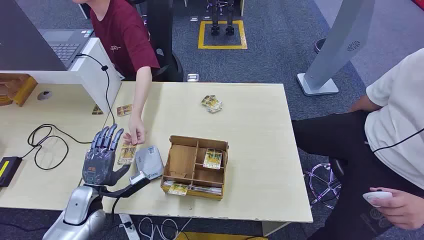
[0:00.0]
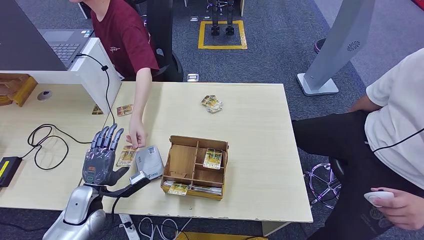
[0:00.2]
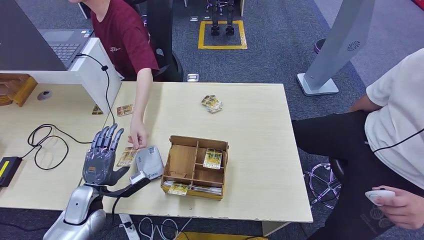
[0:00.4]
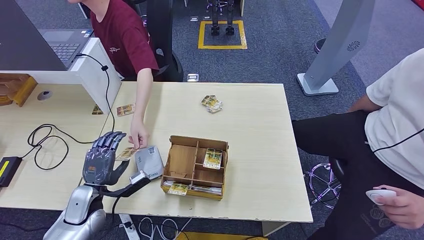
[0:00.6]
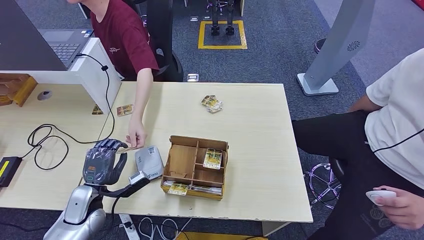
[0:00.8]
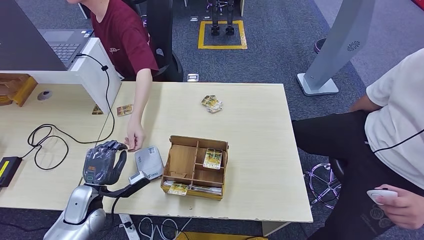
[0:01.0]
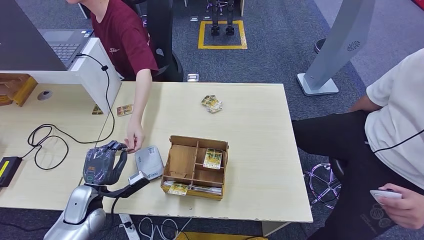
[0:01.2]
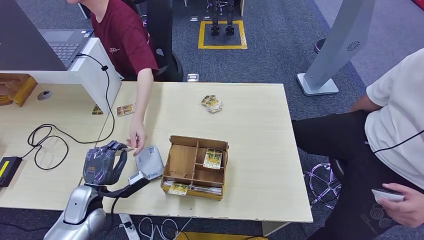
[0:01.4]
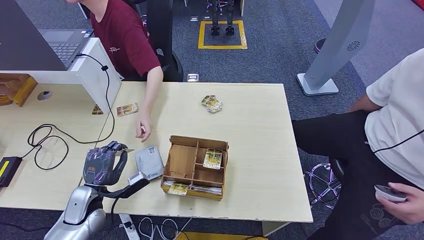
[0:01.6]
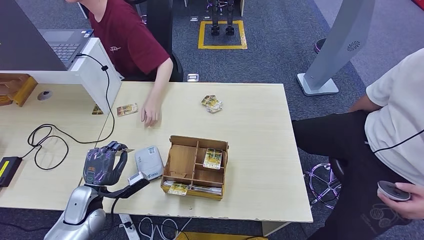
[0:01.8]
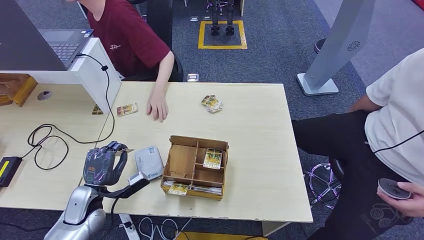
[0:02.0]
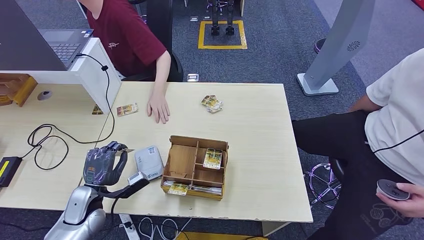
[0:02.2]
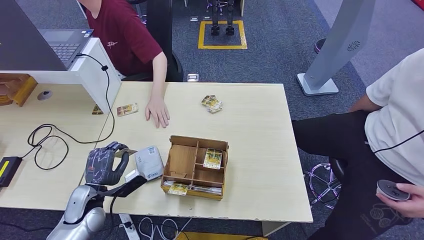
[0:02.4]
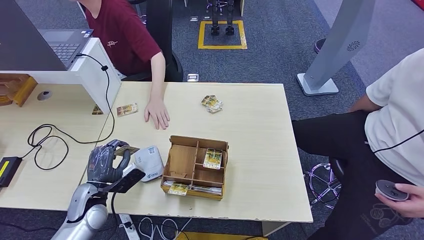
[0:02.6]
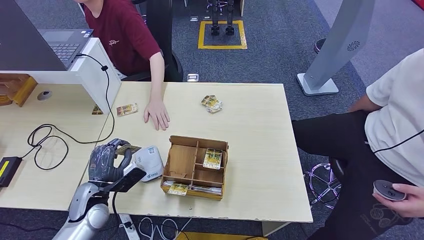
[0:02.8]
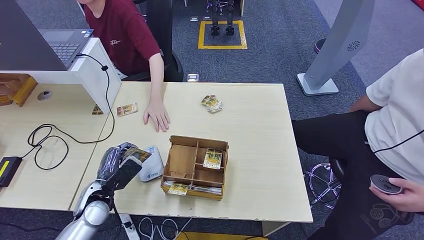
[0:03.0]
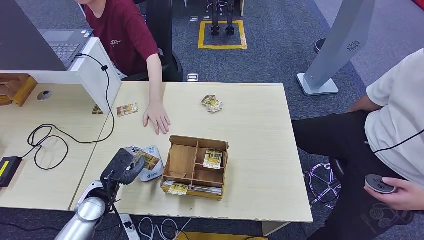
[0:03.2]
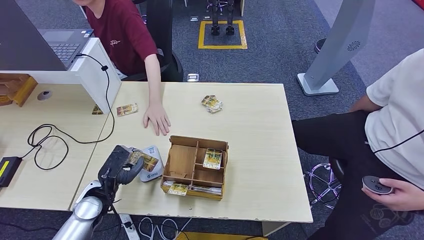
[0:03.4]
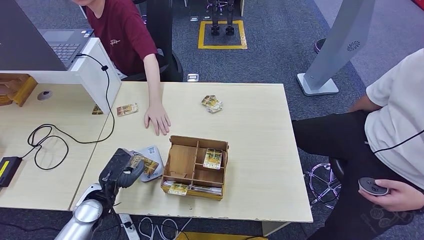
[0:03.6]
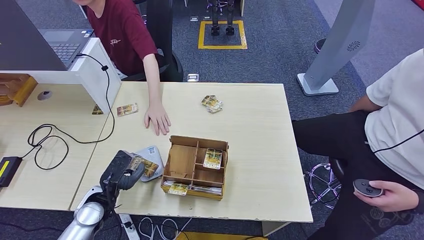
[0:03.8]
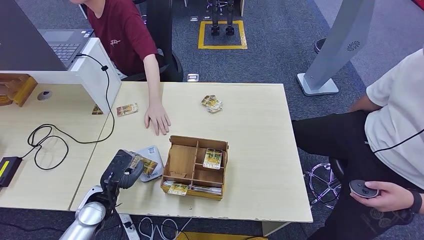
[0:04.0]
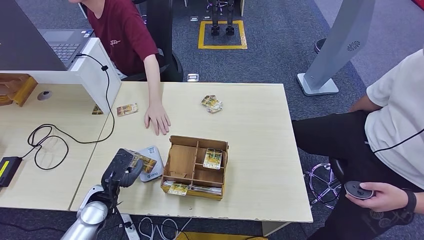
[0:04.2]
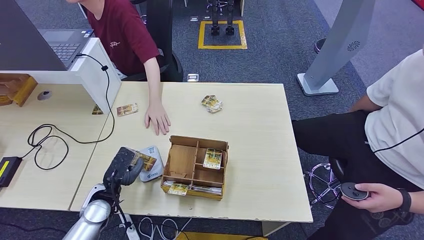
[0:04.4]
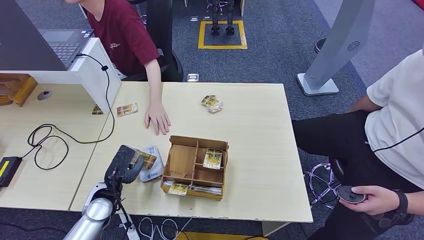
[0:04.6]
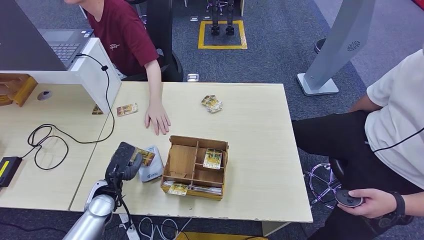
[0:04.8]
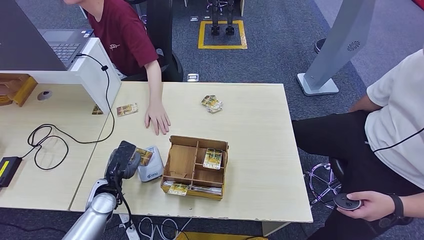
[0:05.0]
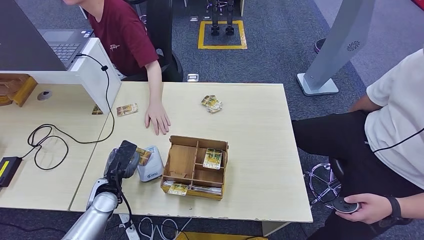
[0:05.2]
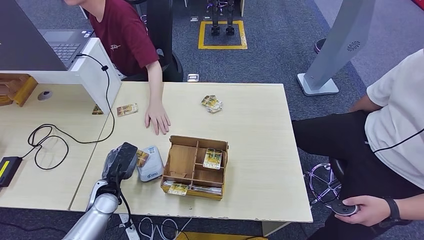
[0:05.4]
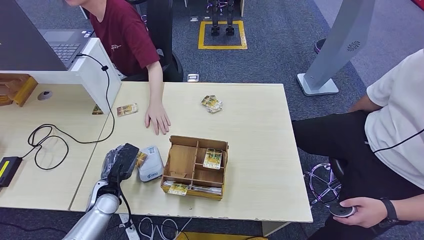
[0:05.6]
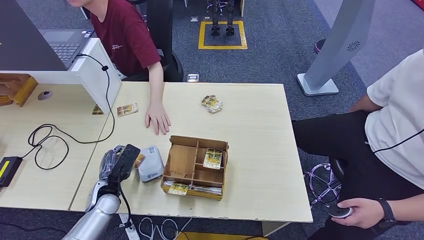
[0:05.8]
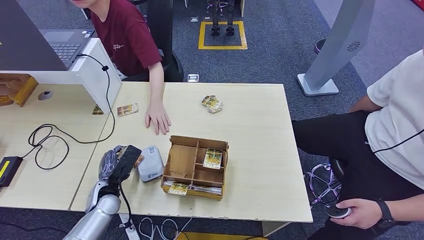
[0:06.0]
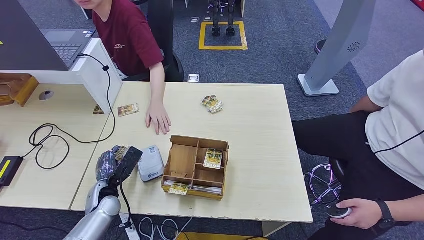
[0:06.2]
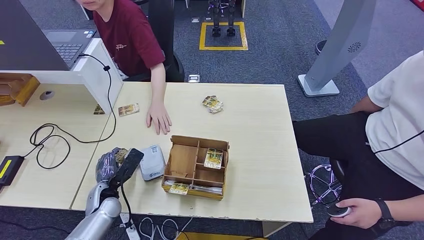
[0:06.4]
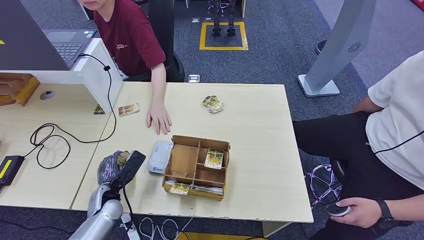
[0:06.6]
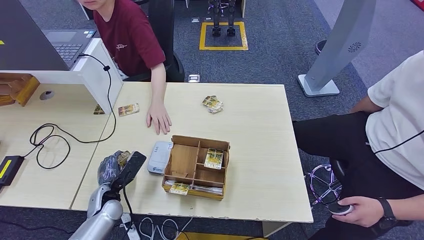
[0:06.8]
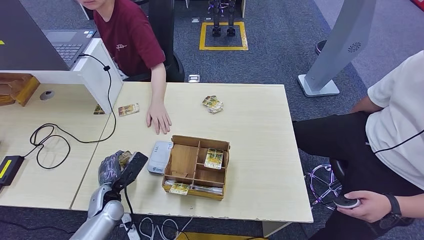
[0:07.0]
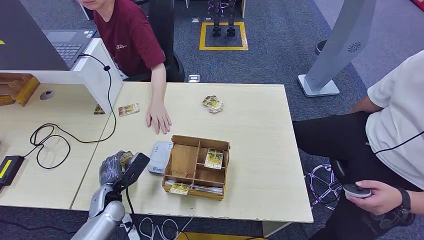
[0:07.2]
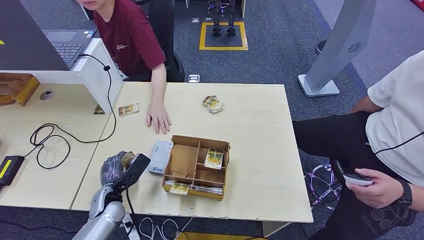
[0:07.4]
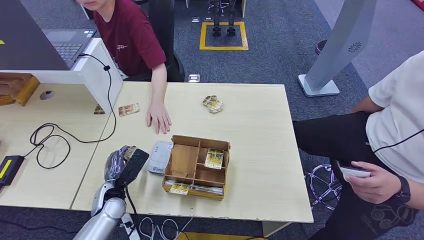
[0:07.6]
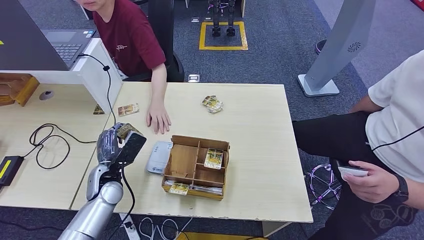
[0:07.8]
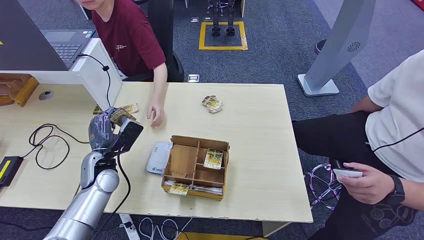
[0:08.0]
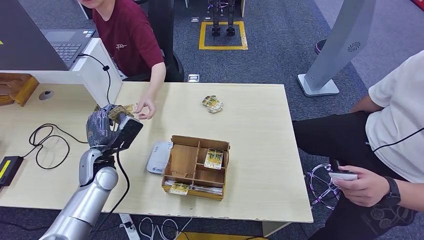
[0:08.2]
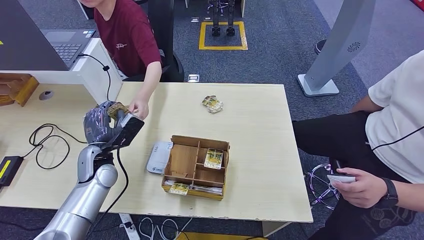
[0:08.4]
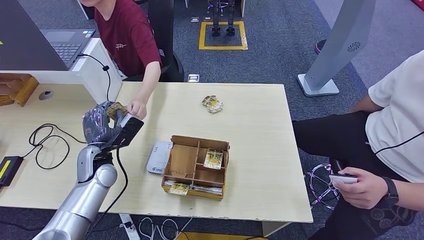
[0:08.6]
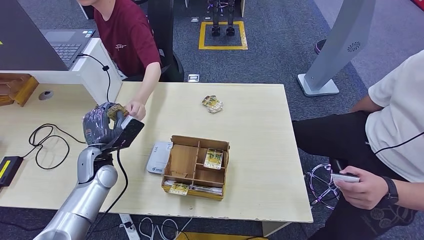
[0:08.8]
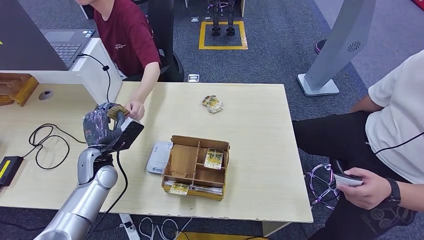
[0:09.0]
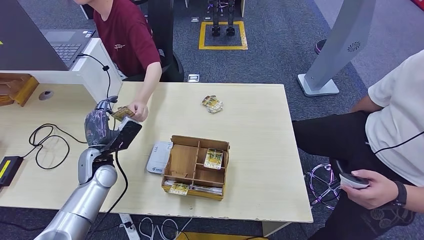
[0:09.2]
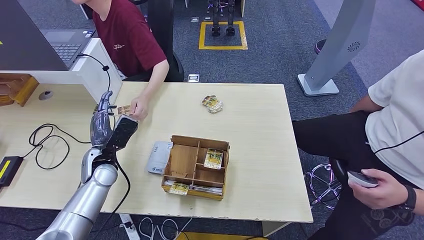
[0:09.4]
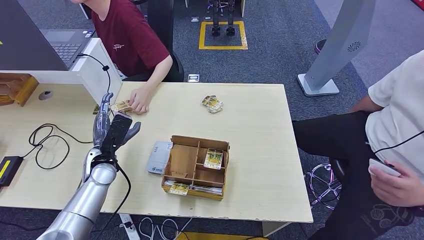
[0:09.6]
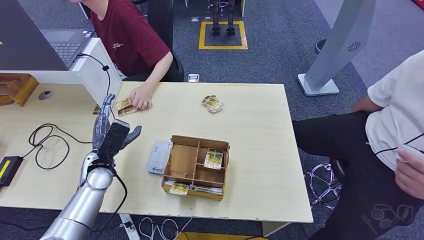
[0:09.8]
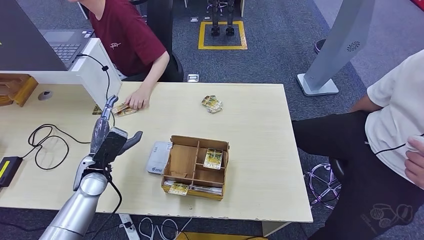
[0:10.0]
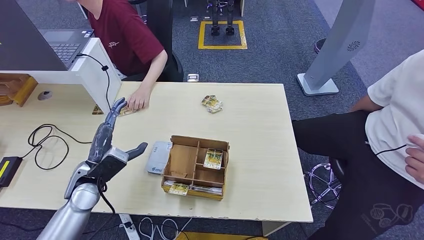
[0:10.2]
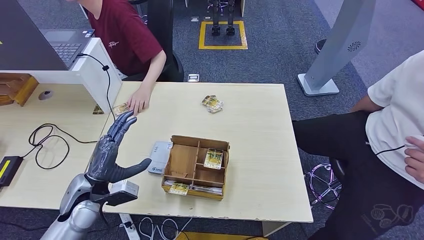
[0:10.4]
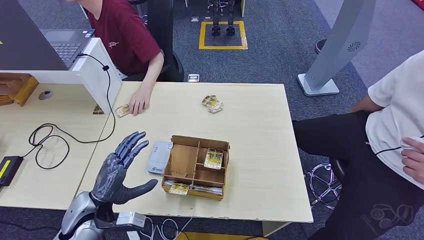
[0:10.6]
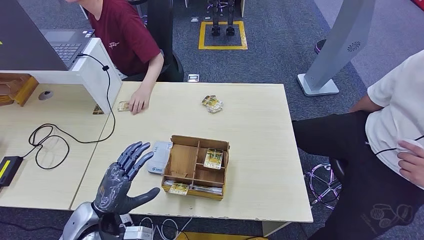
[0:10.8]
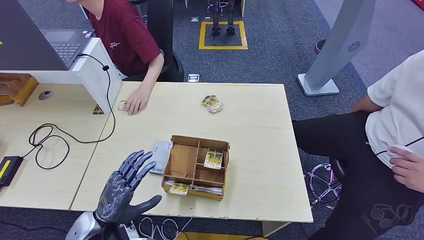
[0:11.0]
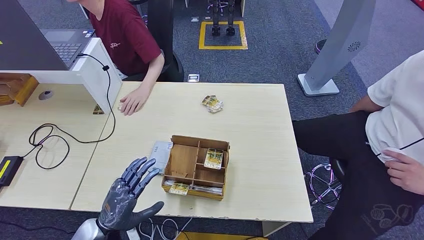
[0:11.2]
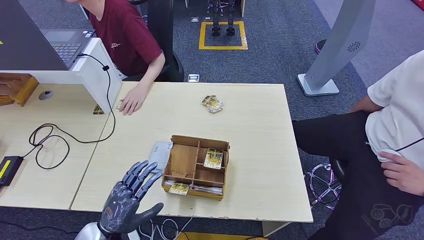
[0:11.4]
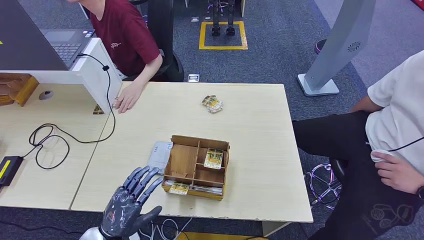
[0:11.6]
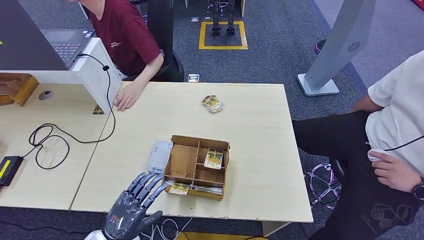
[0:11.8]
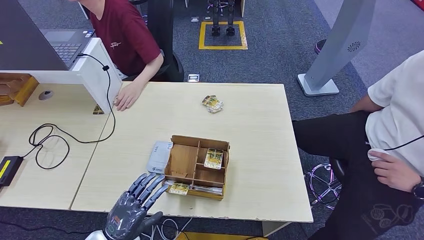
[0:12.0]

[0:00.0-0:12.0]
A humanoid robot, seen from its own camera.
Step, 0:00.0 to 0:01.4: Take the ID card from the person's hand.
Step, 0:02.0 to 0:05.6: Place the ID card on the card reader.
Step, 0:07.4 to 0:09.2: Hand the ID card to the person.
0:06.0 to 0:07.6: The hands make only small movements.
0:07.6 to 0:09.0: The left hand heads upward and forward, covering about 10 cm.
0:09.0 to 0:10.4: The left hand shifts some 10 cm backward.
0:10.4 to 0:12.0: The left hand shifts about 15 cm backward and downward.

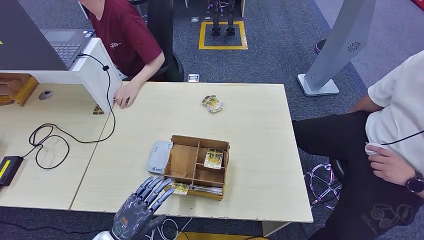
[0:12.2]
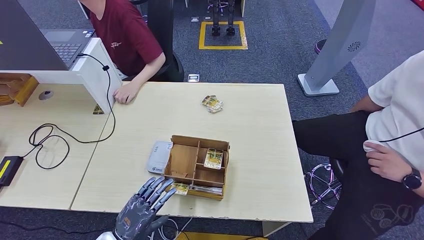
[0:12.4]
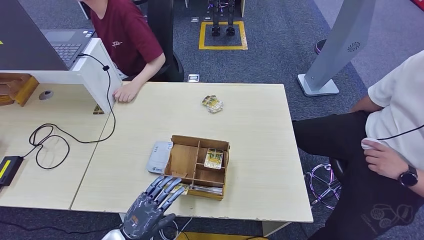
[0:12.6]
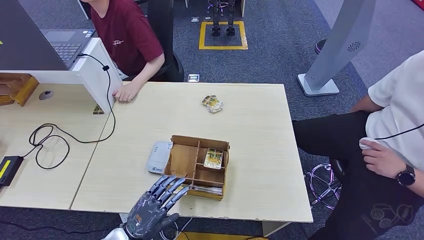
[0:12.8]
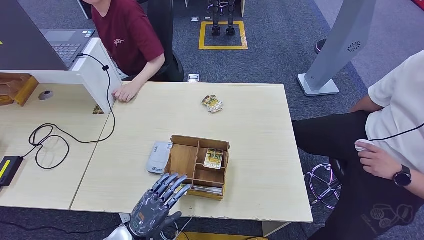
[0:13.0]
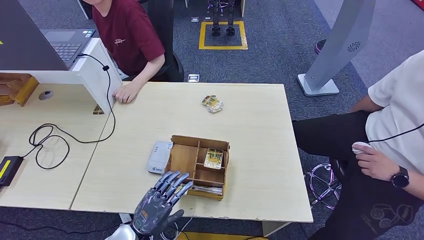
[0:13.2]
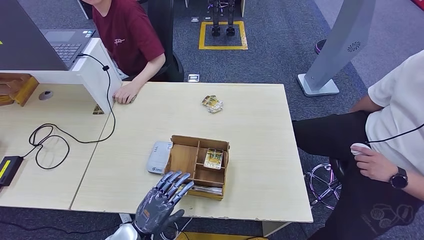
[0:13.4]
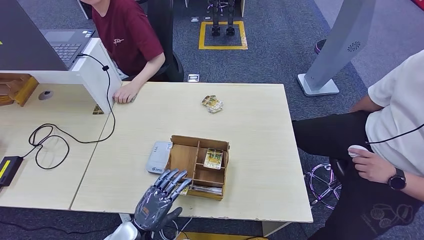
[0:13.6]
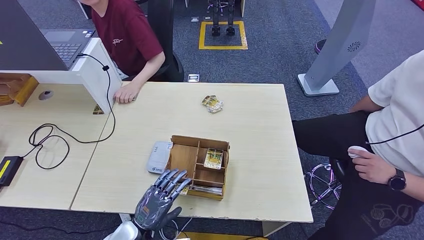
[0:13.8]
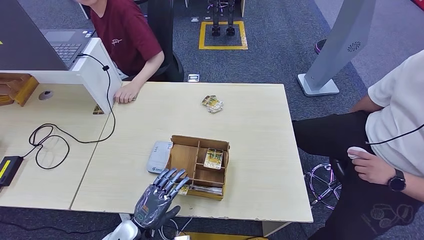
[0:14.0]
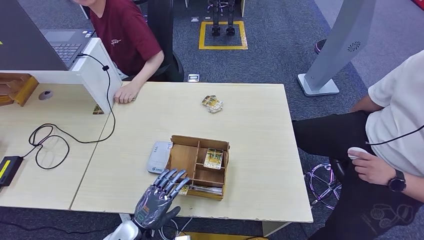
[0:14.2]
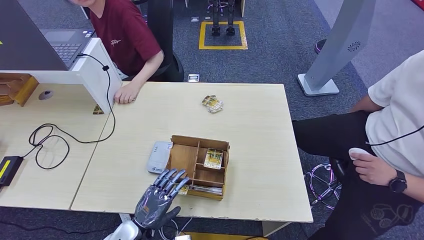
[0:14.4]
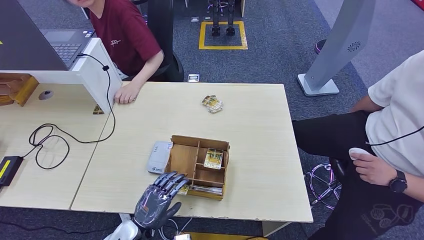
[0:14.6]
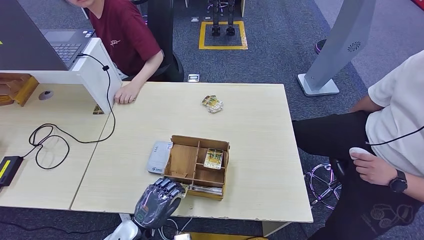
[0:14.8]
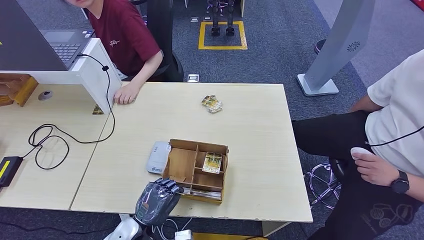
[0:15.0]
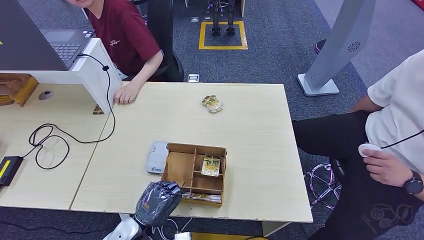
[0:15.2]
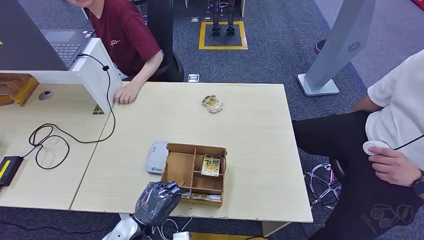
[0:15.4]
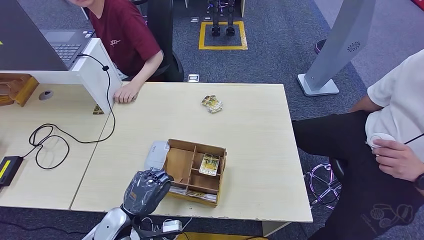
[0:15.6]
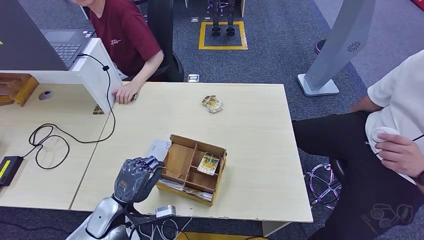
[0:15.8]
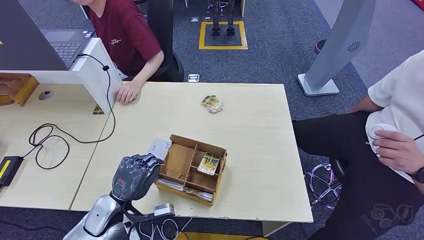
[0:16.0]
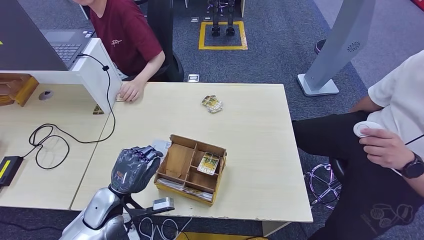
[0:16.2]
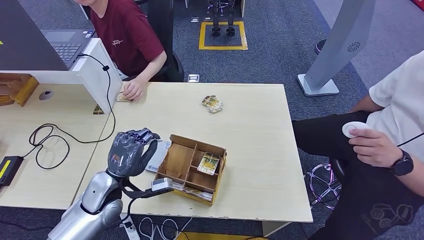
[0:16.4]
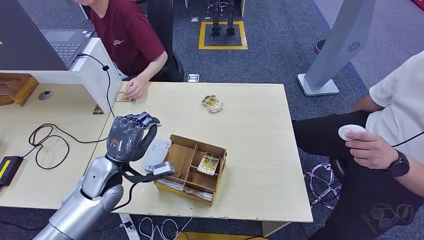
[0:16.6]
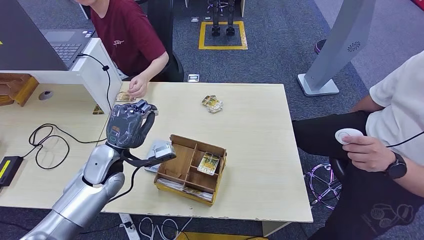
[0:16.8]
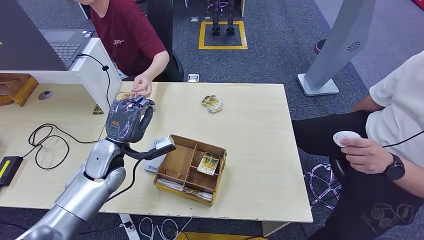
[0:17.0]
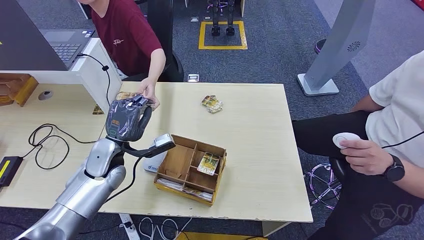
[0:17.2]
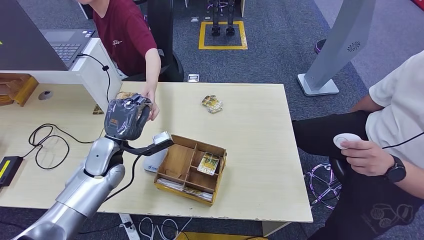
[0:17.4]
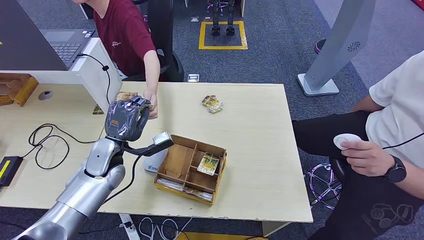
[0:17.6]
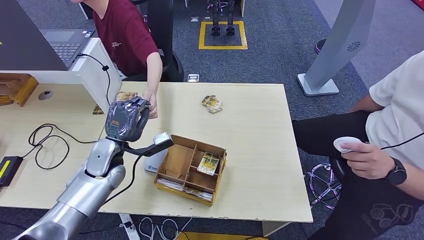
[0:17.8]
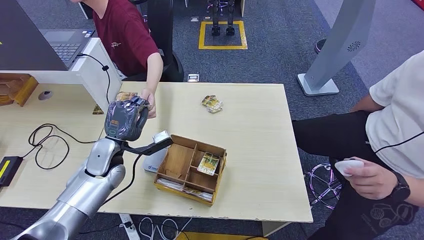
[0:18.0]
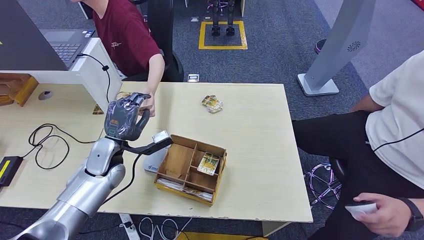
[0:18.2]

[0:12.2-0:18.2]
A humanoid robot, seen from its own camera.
Step, 0:12.2 to 0:15.6: Pick up the room key from the key card box.
Step, 0:16.4 to 0:18.2: Hand the room key to the person.
0:12.2 to 0:13.8: The left hand heads to the right, covering approximately 5 cm.
0:13.8 to 0:15.2: Neither hand changes place.
0:15.2 to 0:16.6: The left hand heads upward and forward, covering roughly 20 cm.
0:16.6 to 0:18.2: The left hand goes some 5 cm forward.
